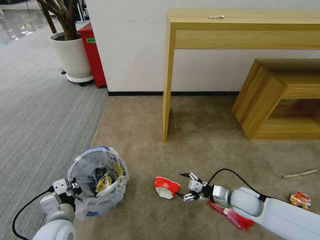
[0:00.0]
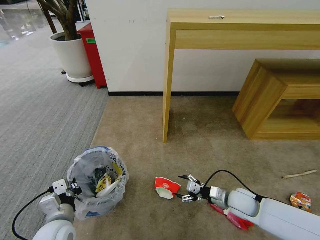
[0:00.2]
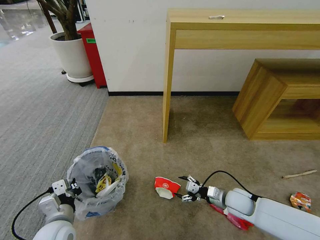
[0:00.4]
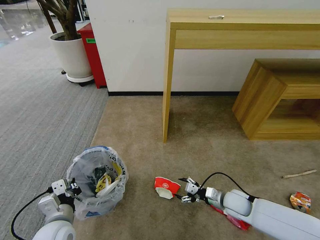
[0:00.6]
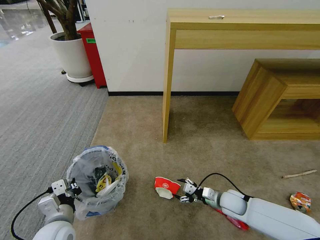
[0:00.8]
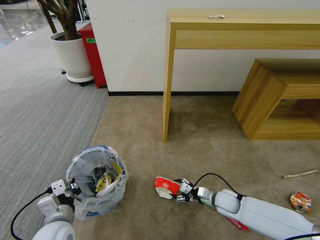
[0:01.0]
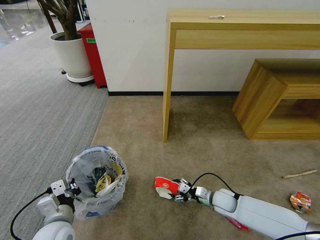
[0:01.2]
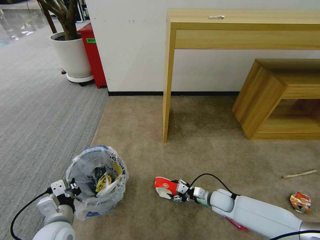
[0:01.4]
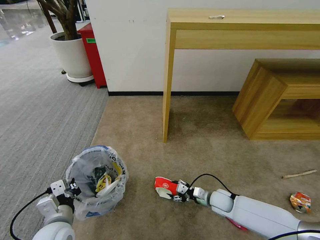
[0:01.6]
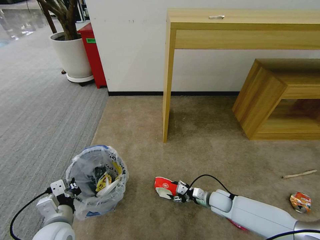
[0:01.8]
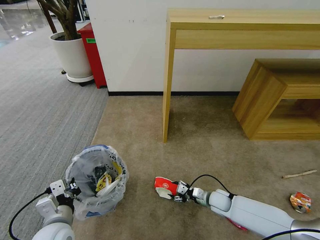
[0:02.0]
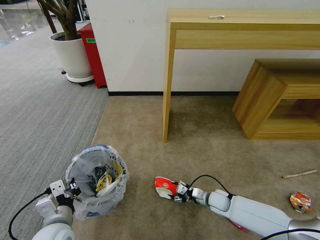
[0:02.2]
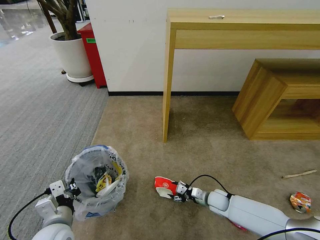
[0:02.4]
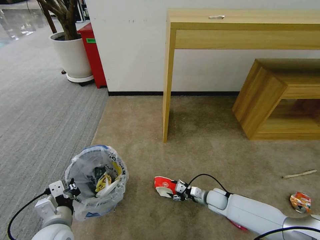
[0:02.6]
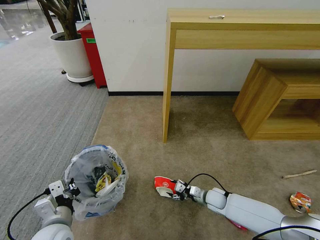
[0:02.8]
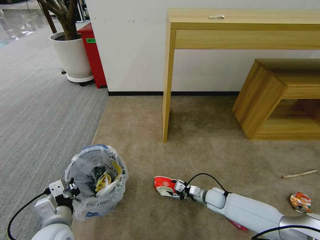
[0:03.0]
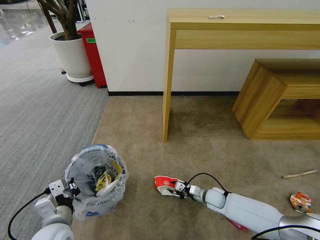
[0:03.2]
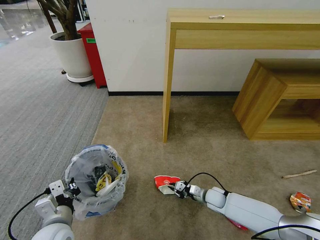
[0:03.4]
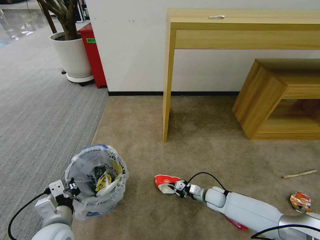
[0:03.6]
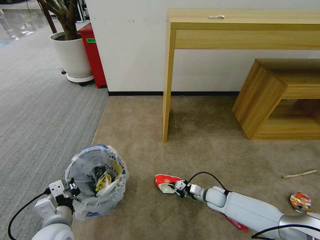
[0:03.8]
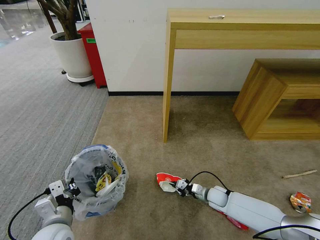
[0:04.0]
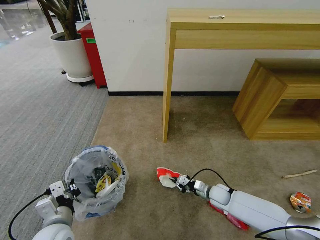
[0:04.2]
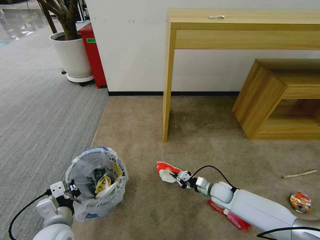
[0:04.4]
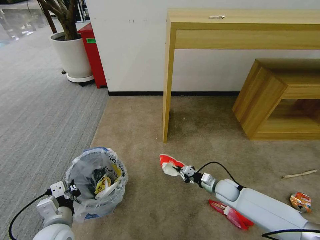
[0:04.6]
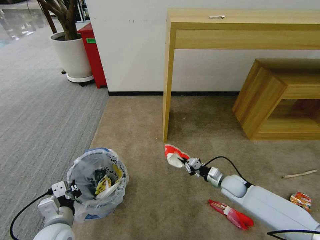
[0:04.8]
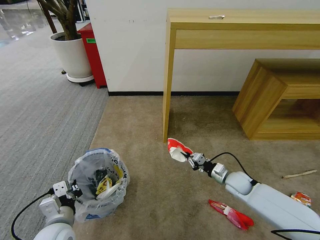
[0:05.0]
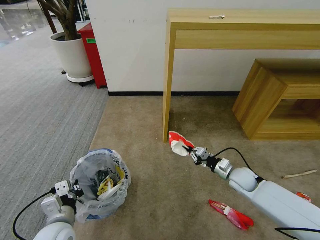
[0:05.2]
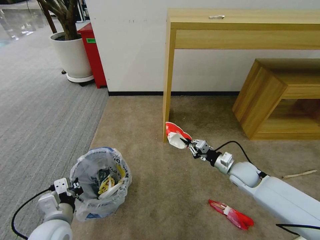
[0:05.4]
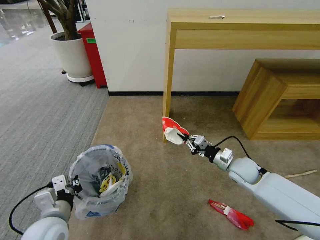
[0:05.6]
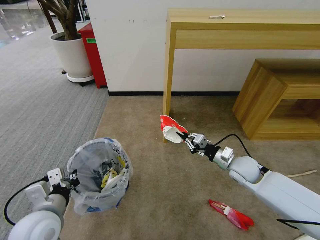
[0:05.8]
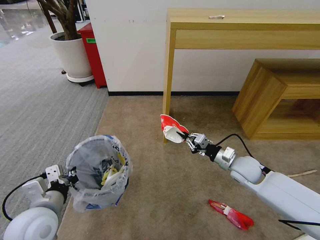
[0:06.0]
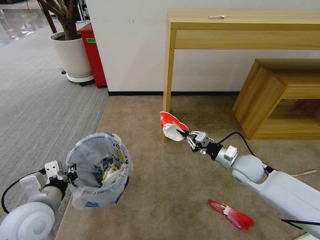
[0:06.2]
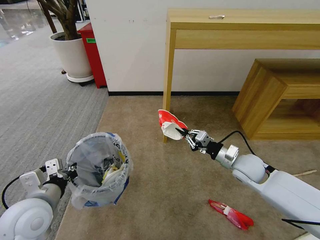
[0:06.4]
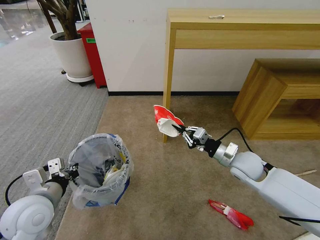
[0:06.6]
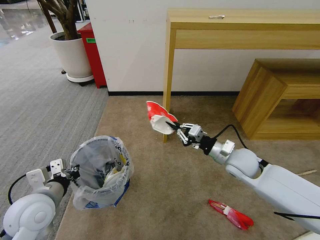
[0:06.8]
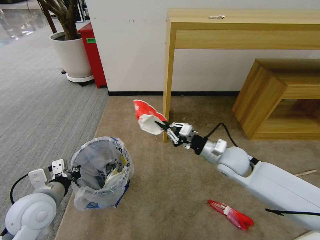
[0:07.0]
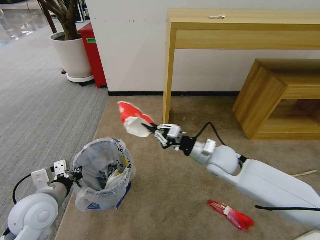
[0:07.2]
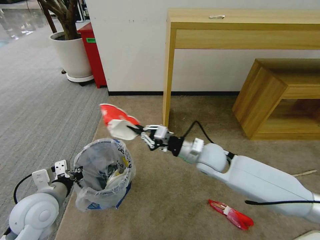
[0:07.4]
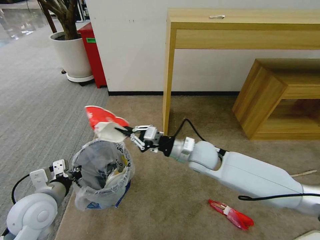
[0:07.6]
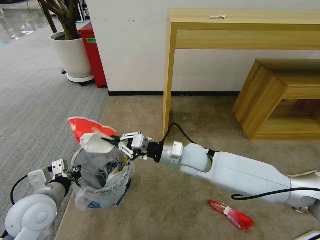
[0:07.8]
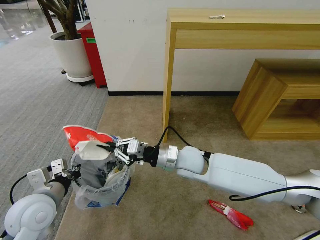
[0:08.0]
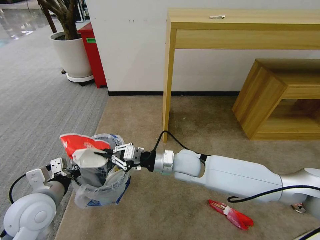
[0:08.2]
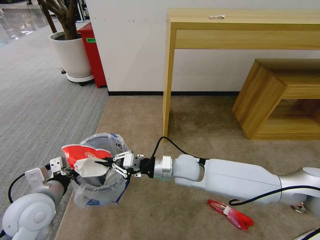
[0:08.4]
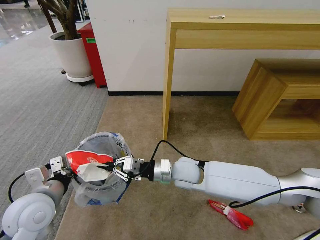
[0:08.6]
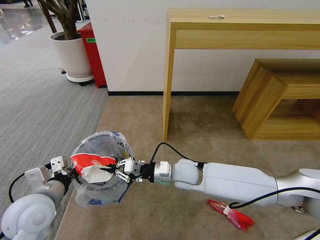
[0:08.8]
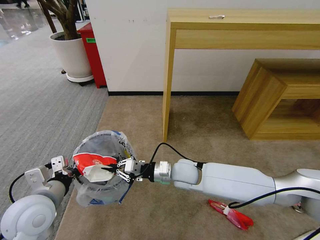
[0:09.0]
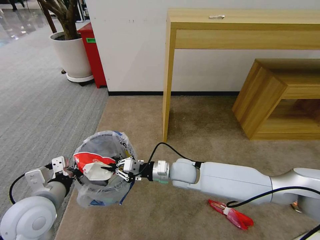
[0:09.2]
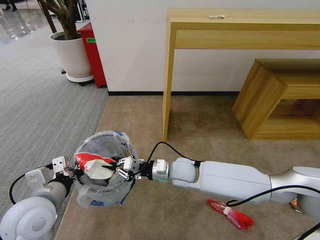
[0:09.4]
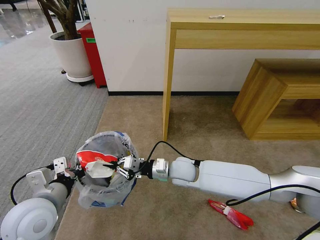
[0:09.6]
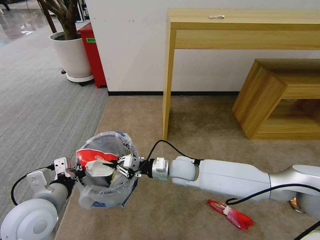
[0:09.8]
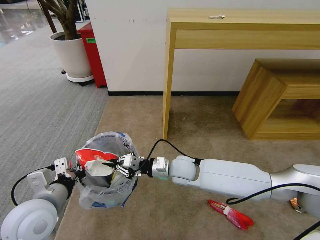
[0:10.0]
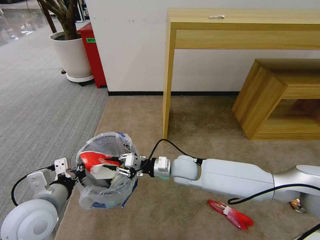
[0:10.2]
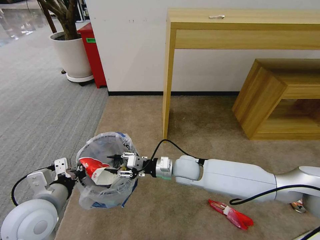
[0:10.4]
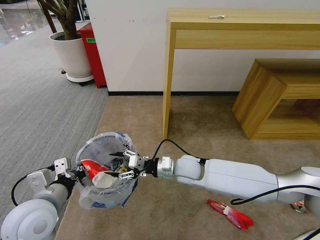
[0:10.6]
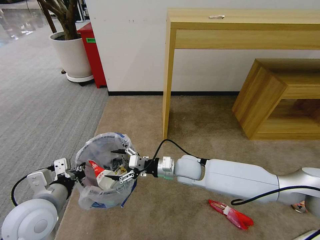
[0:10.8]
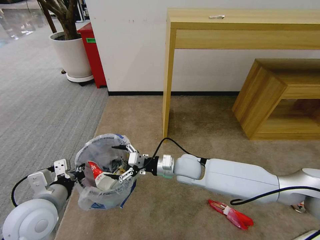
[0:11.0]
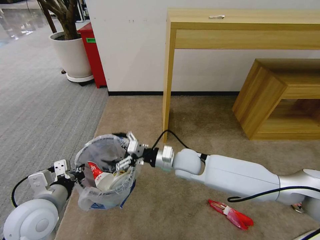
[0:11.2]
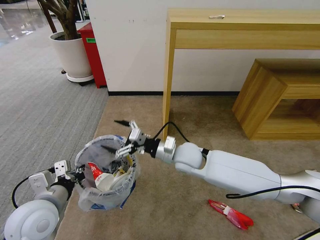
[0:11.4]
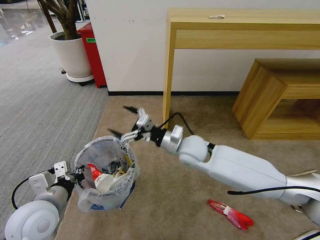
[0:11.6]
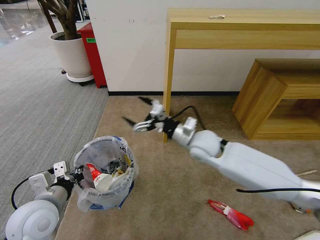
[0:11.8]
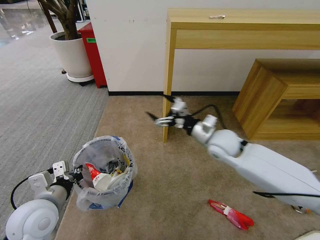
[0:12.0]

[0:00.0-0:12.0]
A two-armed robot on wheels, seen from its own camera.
Task of the whole recording: Pick up the trash bin and place the garbage on the floor into it.
0:00.0 to 0:01.6: The right gripper moves downward, about 10 cm.
0:01.6 to 0:03.0: The grippers move only a little.
0:03.0 to 0:04.4: The right gripper closes up.
0:04.4 to 0:06.0: The right gripper shifts roughly 20 cm upward. The left gripper moves upward, approximately 10 cm.
0:06.0 to 0:07.6: The right gripper moves to the left and upward, approximately 20 cm.
0:07.6 to 0:09.0: The right gripper heads downward, covering some 5 cm.
0:09.0 to 0:10.4: The right gripper opens its fingers.
0:10.4 to 0:12.0: The right gripper heads to the right and upward, covering about 15 cm, and opens up.

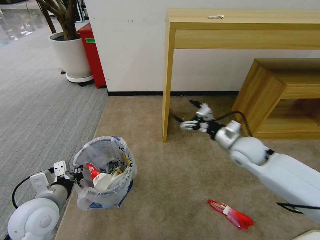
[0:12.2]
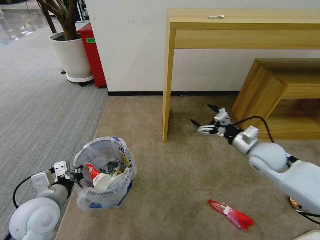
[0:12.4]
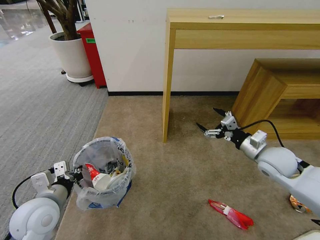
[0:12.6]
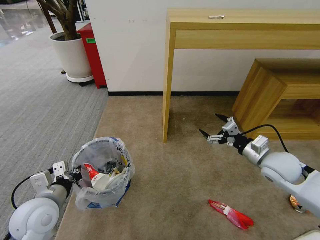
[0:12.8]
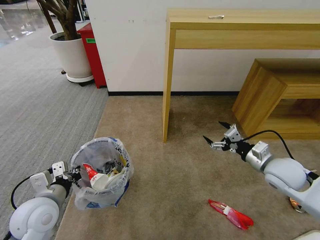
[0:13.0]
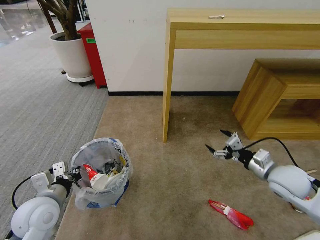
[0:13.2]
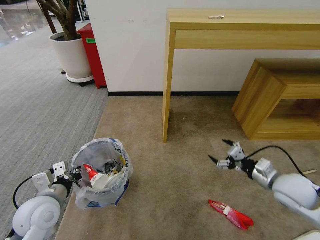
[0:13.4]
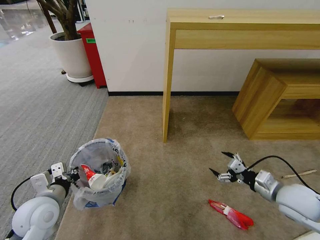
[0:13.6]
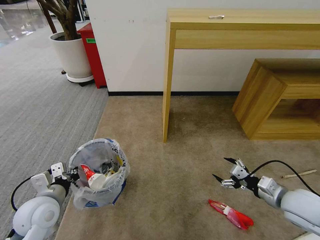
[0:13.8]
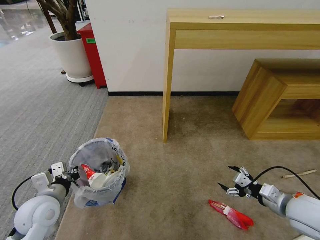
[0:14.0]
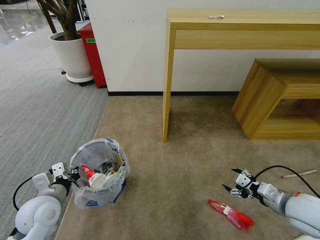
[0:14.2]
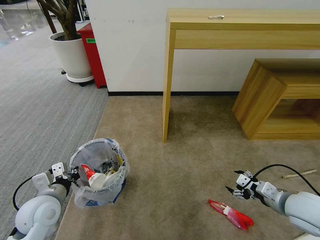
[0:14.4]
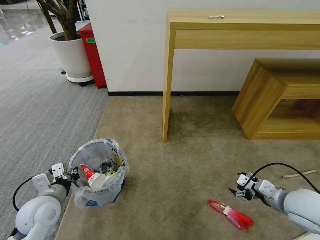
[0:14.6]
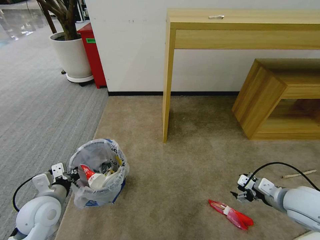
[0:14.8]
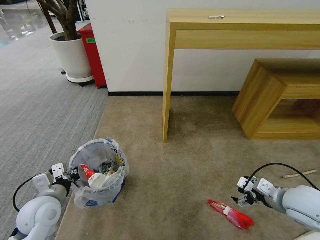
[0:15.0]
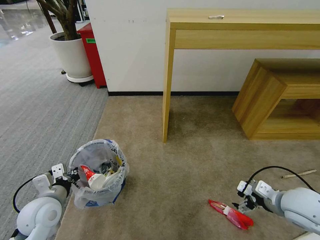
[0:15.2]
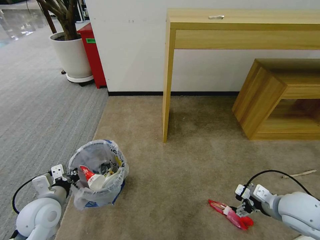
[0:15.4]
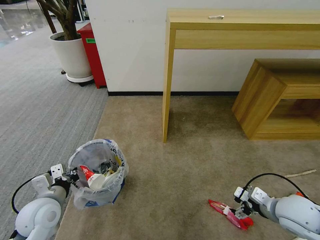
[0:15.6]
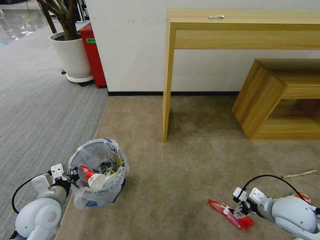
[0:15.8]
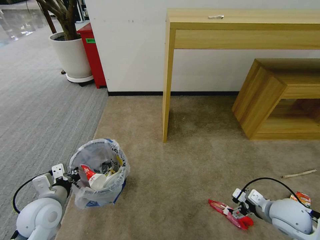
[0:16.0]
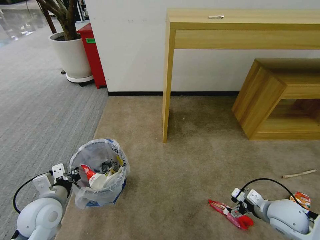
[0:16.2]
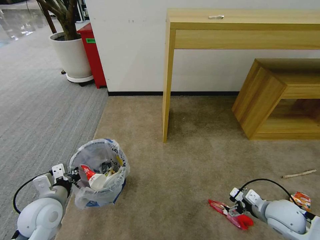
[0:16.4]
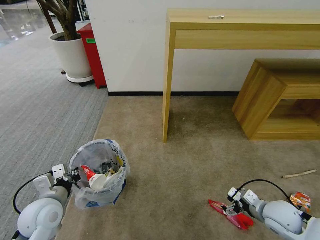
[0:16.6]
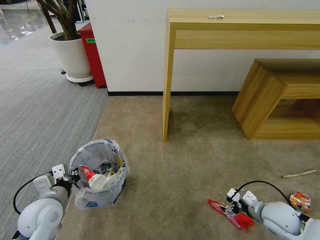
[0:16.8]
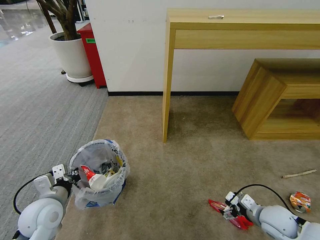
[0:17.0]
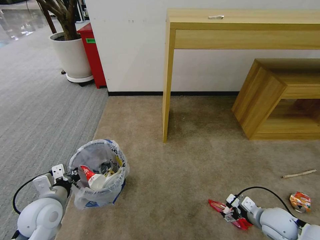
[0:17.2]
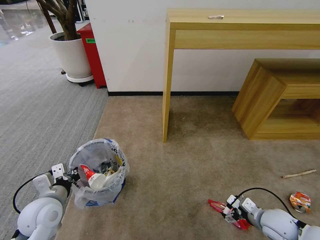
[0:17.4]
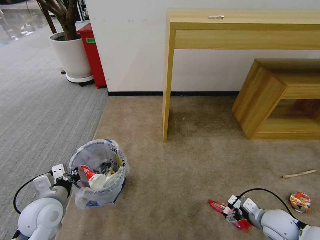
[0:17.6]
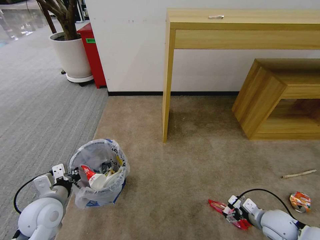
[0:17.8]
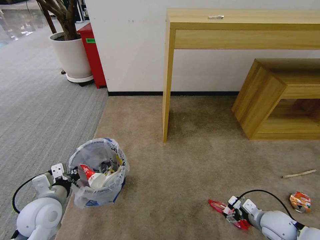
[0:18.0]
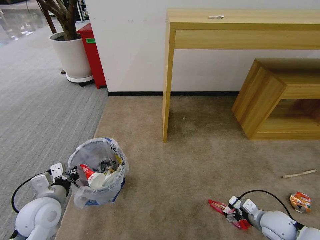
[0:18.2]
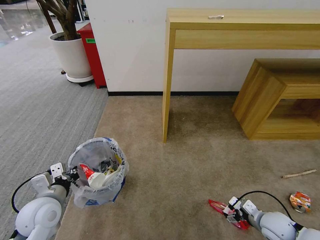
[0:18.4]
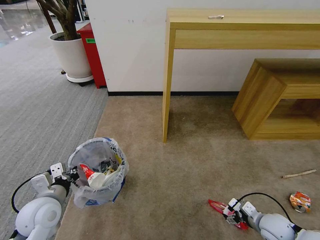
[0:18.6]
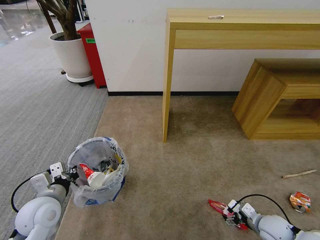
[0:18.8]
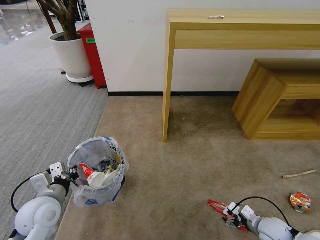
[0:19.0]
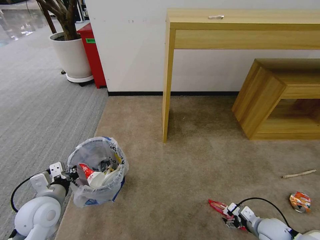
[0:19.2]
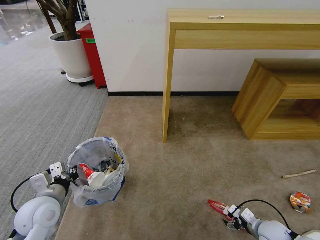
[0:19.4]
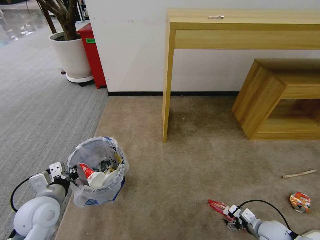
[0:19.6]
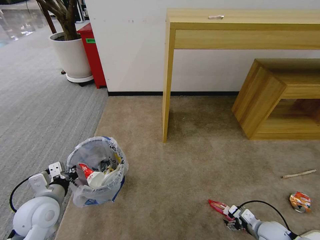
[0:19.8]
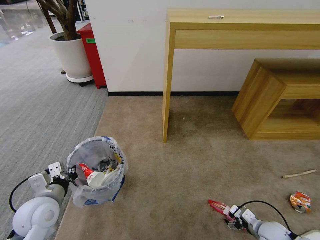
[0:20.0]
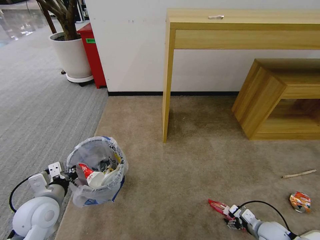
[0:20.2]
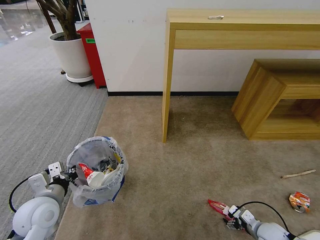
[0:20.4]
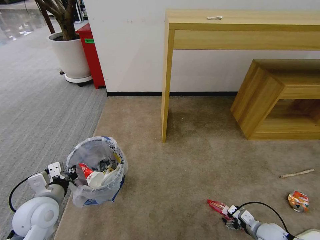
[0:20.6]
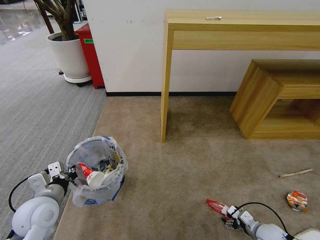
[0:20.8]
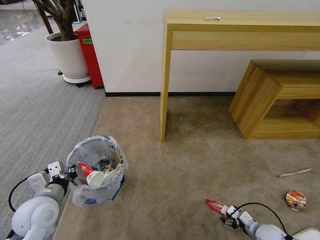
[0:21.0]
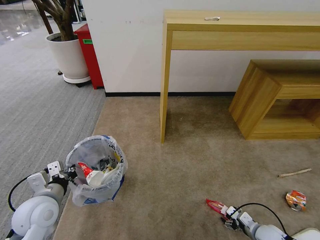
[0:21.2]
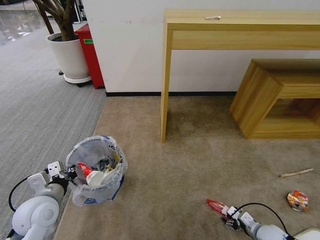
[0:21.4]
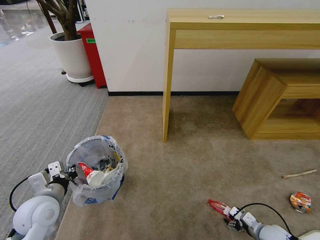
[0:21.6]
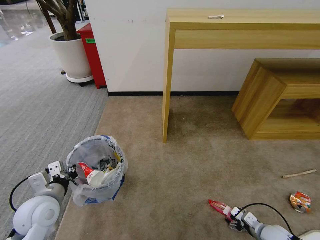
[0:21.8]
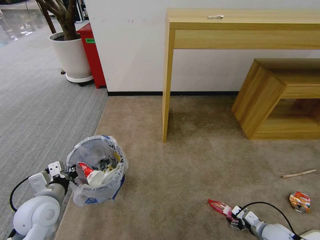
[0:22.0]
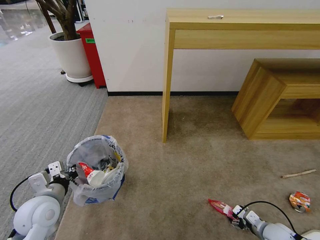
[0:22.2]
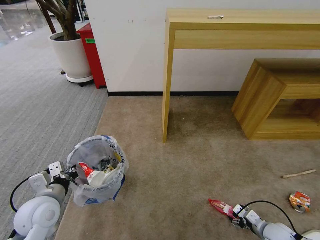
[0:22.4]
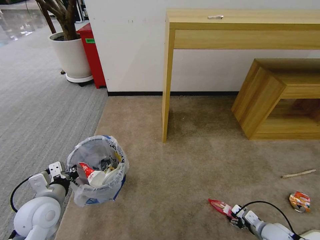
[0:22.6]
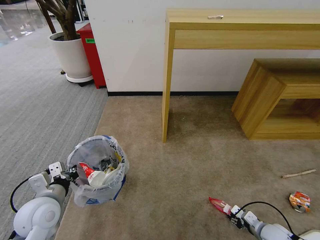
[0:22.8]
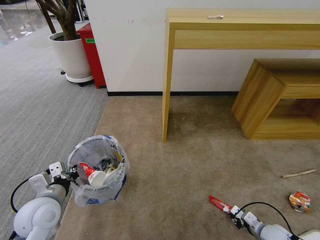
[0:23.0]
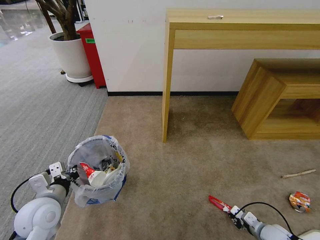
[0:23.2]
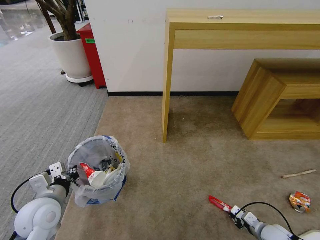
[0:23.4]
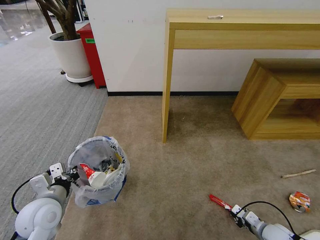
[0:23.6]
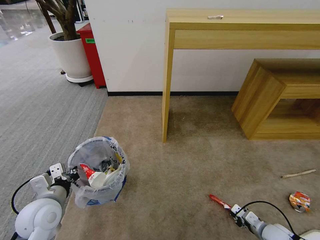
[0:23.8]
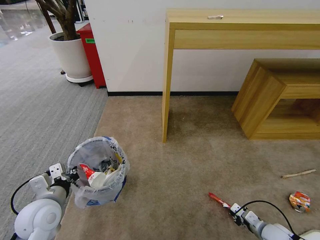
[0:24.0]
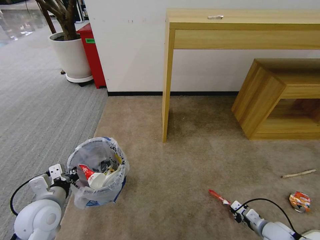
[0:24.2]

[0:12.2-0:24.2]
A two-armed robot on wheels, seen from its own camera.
Task of the whole recording: Pick up the trash bin and place the garbage on the floor into it.
0:12.2 to 0:13.8: The right gripper travels backward and to the right by approximately 20 cm.
0:15.2 to 0:16.6: The right gripper is displaced downward by about 10 cm.
0:16.6 to 0:18.2: The right gripper heads downward, covering some 5 cm.
0:18.2 to 0:19.8: The right gripper heads downward, covering roughly 5 cm.
0:19.8 to 0:22.6: There are only small adjustments of the grippers.
0:22.6 to 0:24.2: The right gripper closes.
